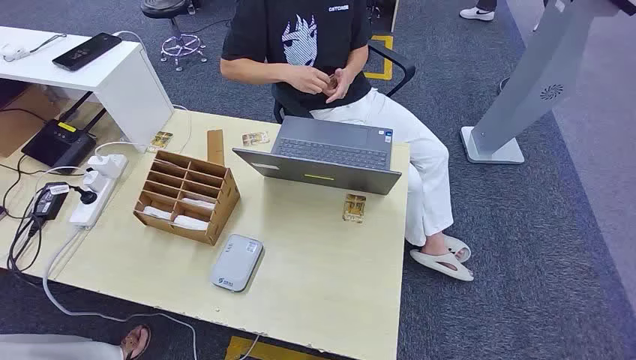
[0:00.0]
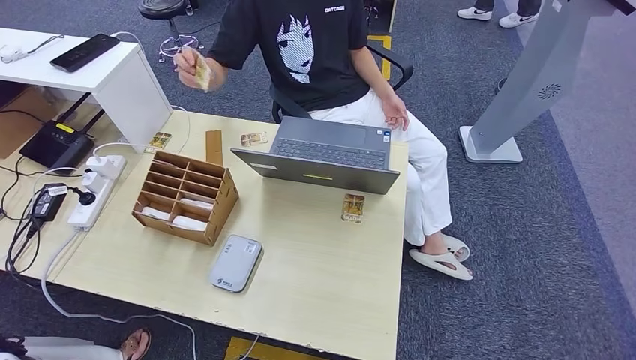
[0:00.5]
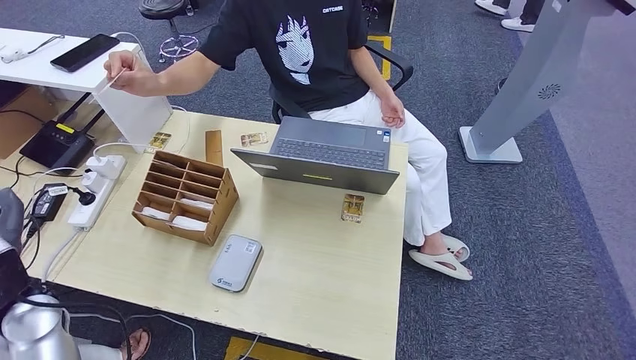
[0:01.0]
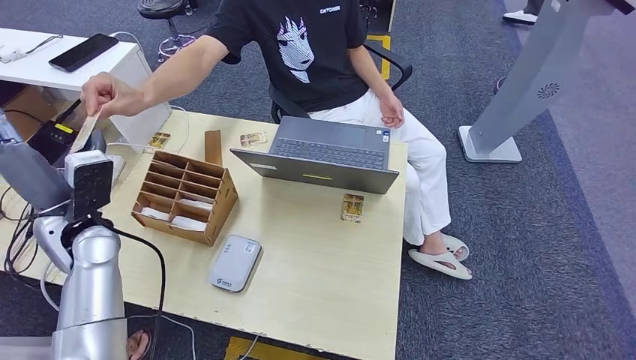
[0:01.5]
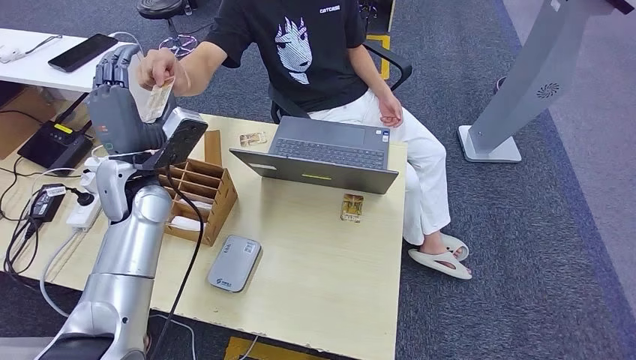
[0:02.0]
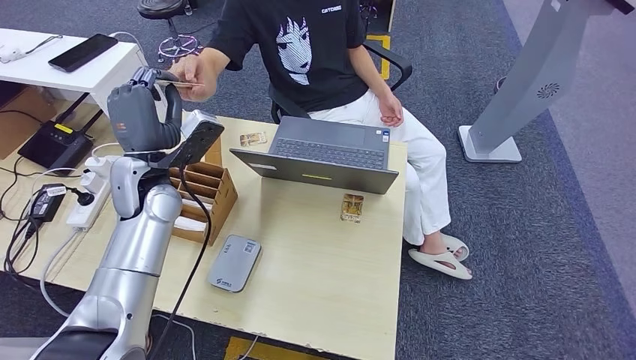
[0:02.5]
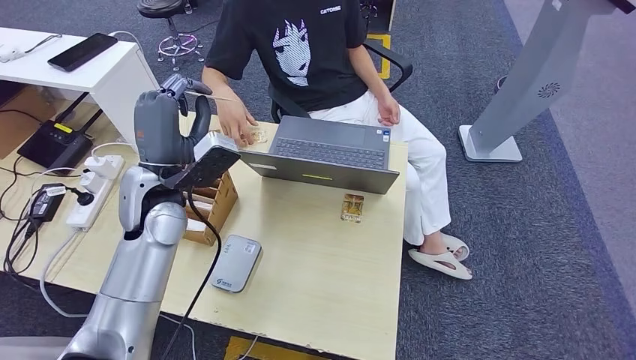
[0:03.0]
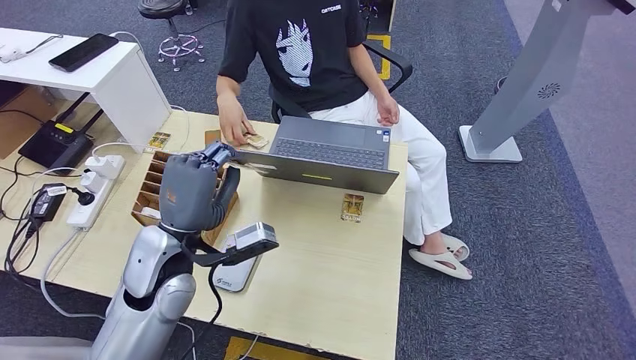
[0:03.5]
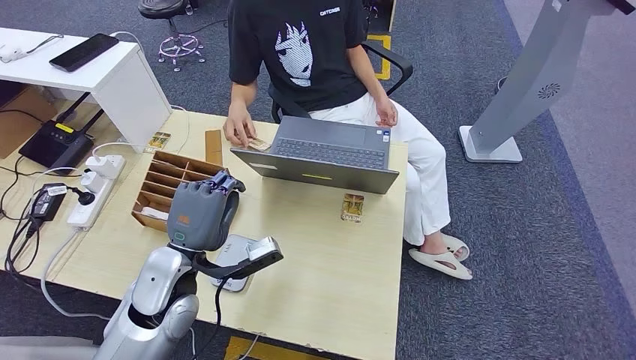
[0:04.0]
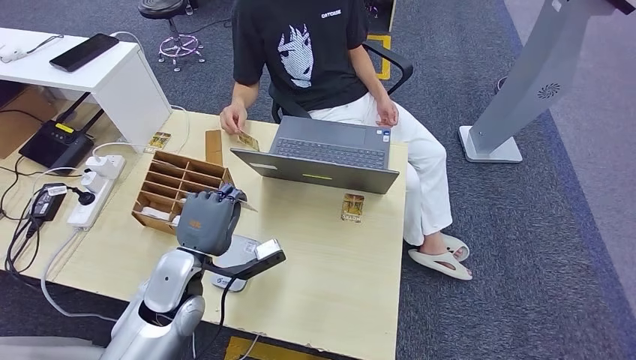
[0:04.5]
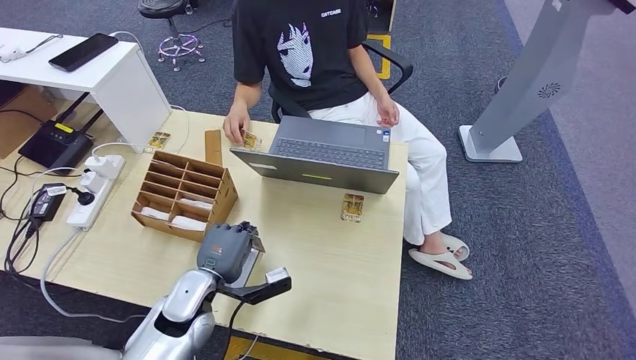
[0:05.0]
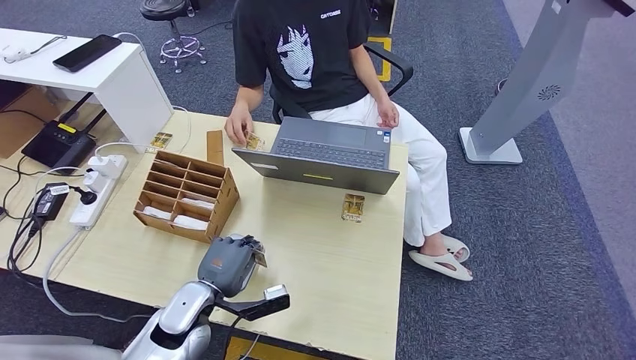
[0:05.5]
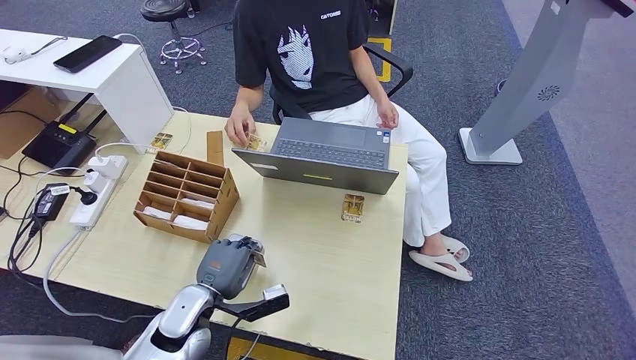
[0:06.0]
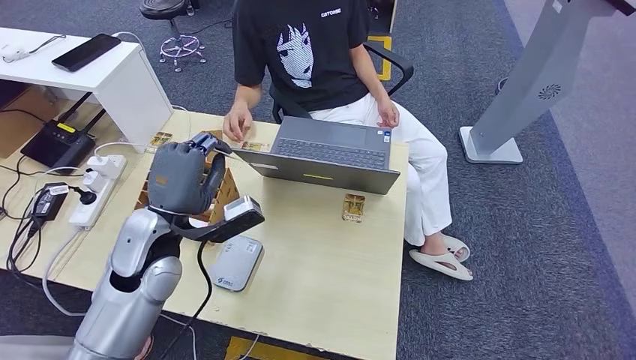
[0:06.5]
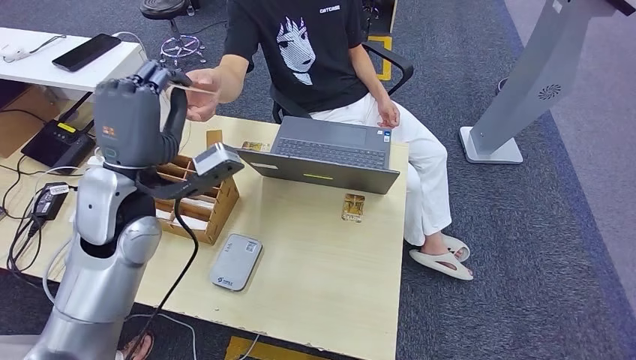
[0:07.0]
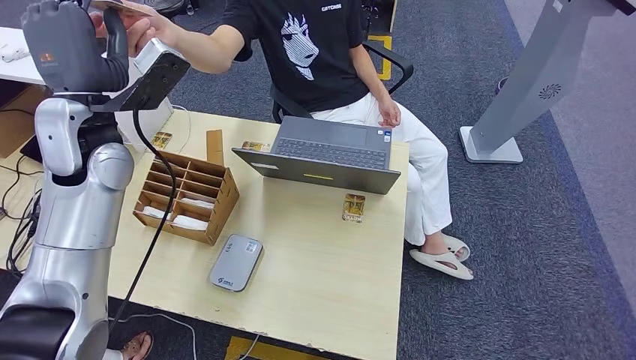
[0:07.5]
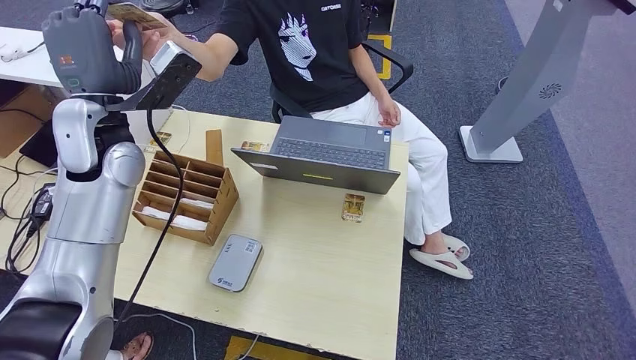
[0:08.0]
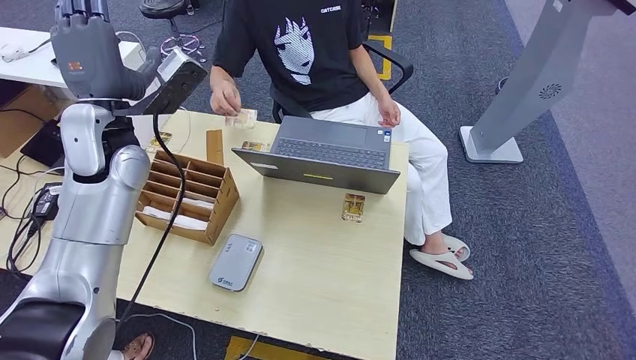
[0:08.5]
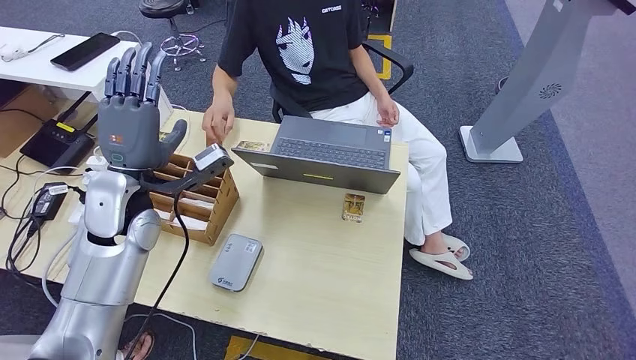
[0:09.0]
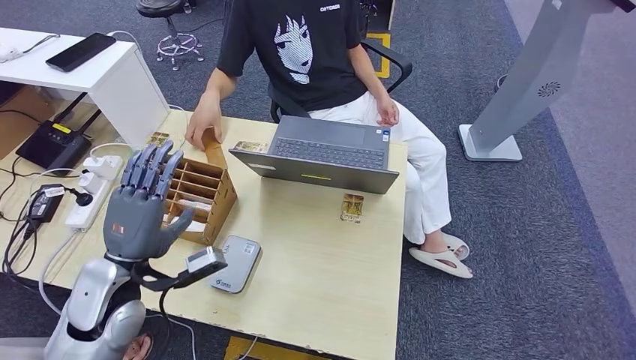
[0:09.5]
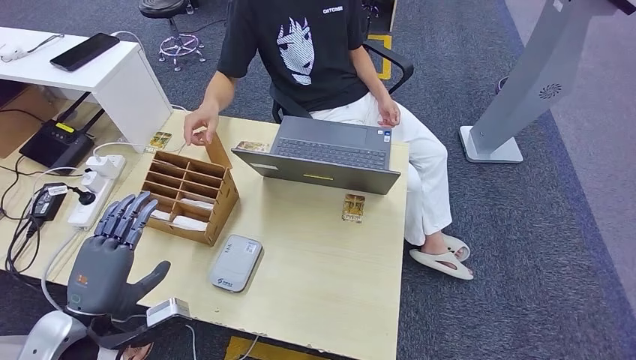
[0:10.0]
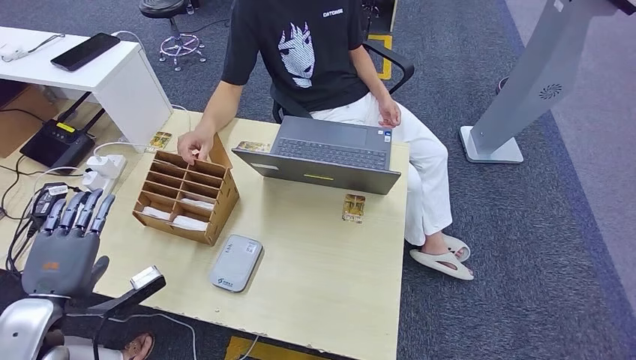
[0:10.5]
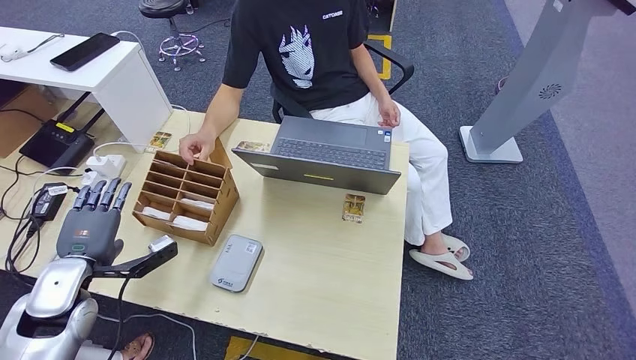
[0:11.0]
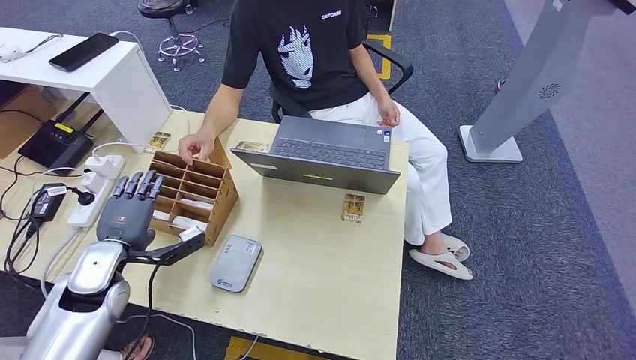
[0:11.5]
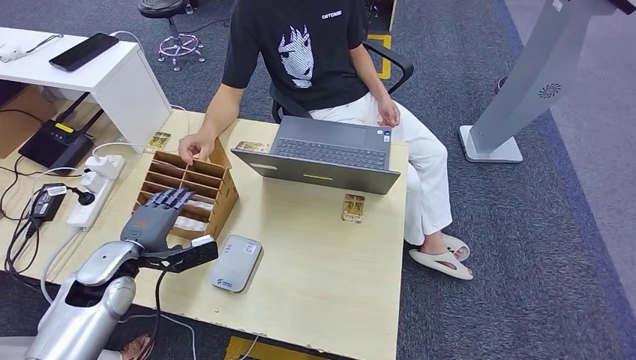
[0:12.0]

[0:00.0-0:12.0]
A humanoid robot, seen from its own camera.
Step, 0:00.0 to 0:03.0: Take the ID card from the person's hand.
Step, 0:03.5 to 0:05.0: Place the ID card on the card reader.
Step, 0:05.5 to 0:08.0: Hand the ID card to the person.
0:02.0 to 0:04.0: The left hand shifts about 15 cm backward, downward and to the right.
0:04.0 to 0:06.0: The left hand goes about 10 cm downward.
0:08.0 to 0:10.0: The left hand is displaced backward and downward by roughly 30 cm.
0:10.0 to 0:12.0: The left hand is displaced forward by approximately 10 cm.

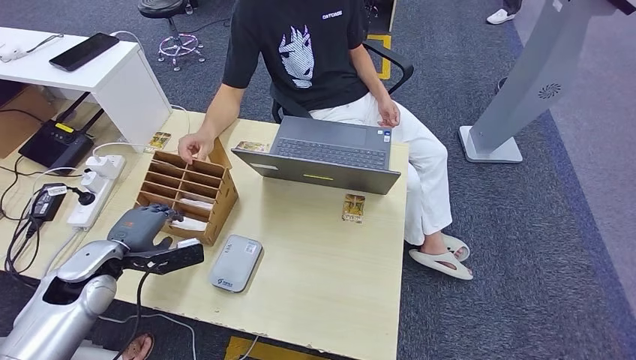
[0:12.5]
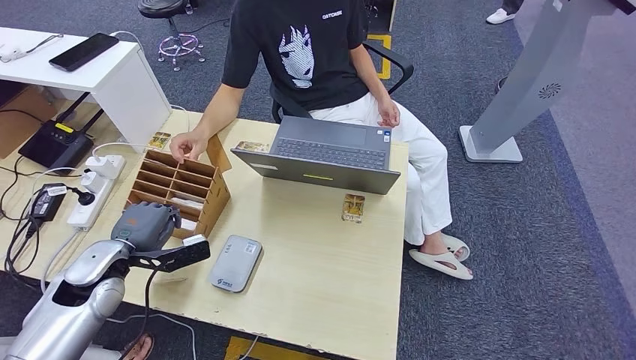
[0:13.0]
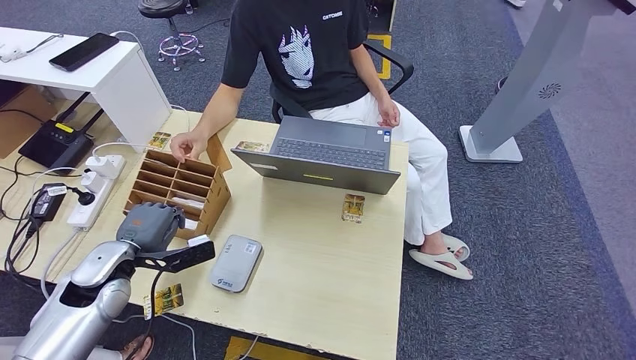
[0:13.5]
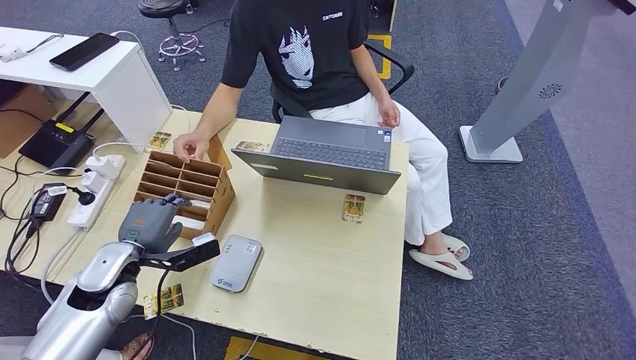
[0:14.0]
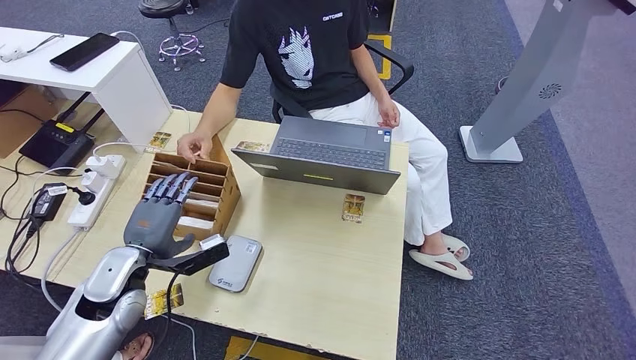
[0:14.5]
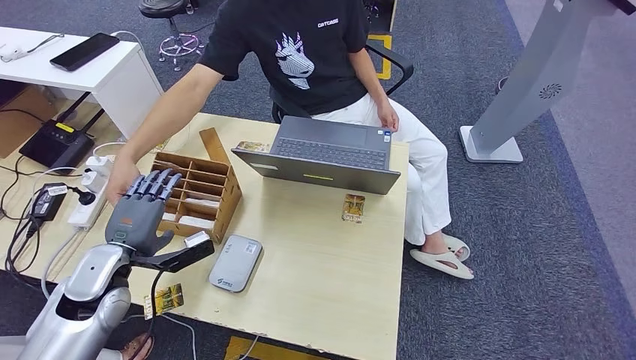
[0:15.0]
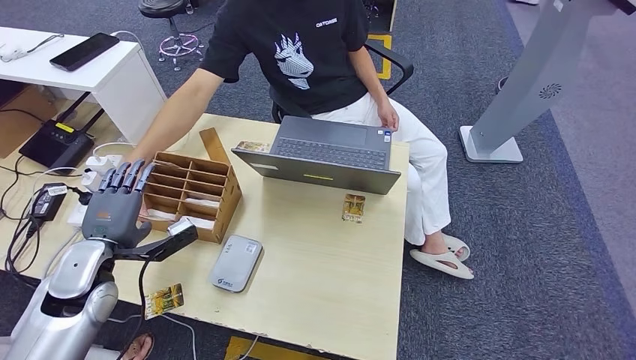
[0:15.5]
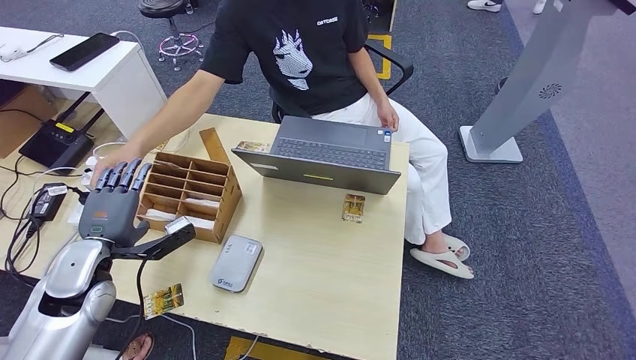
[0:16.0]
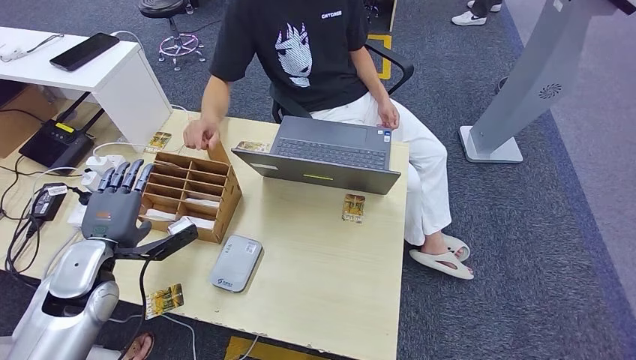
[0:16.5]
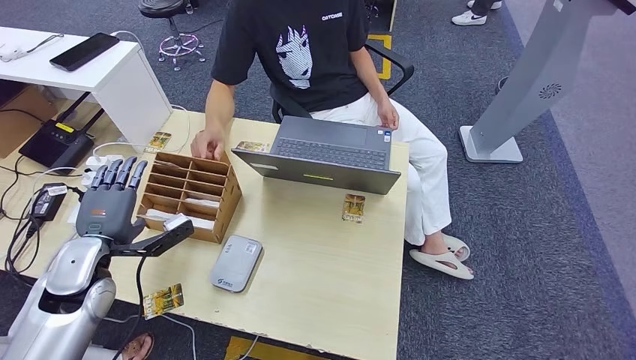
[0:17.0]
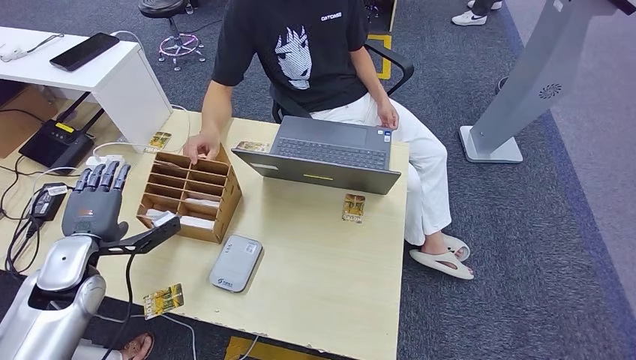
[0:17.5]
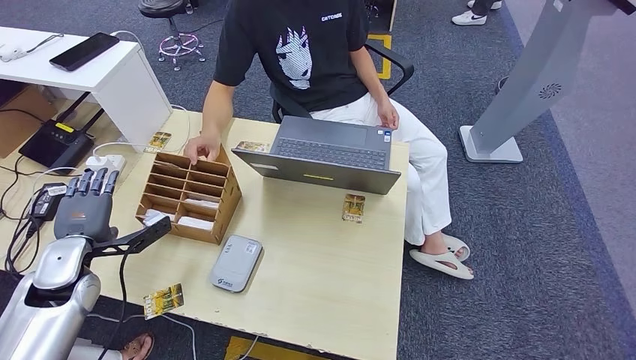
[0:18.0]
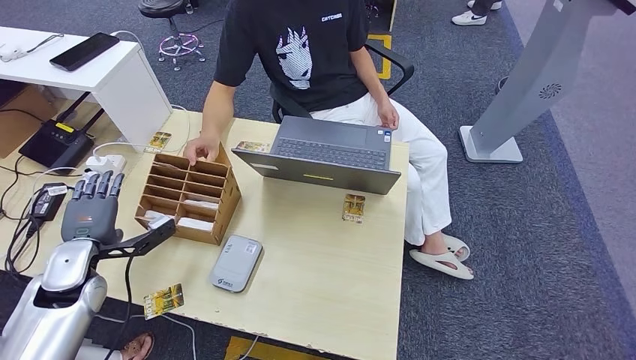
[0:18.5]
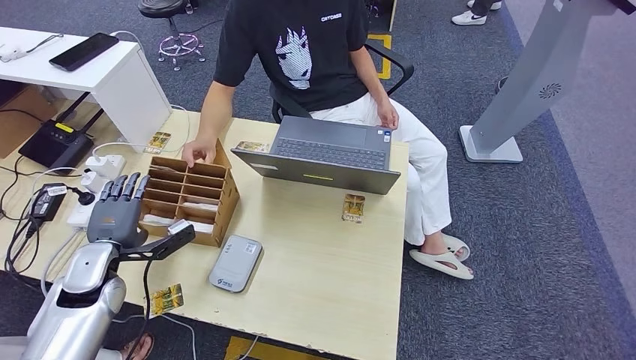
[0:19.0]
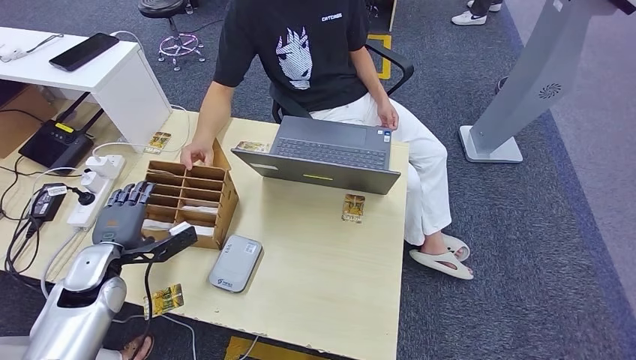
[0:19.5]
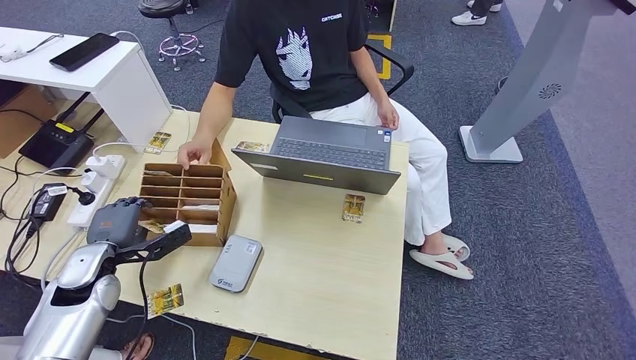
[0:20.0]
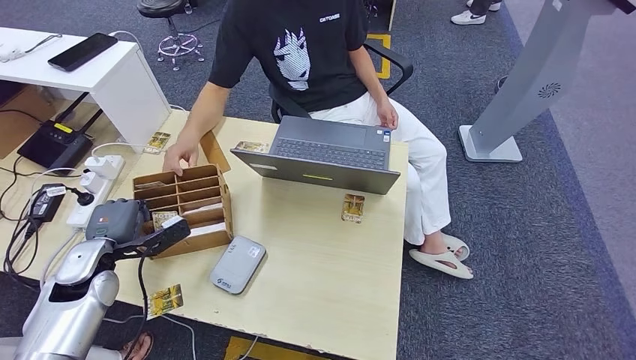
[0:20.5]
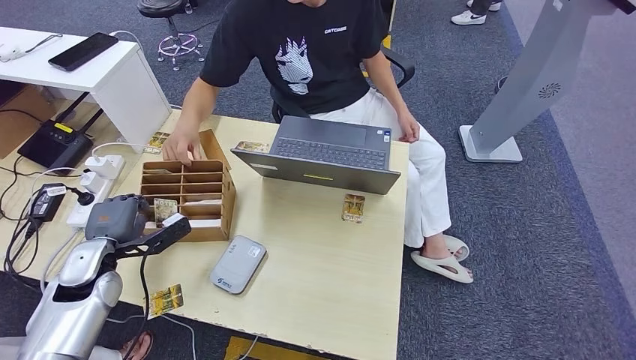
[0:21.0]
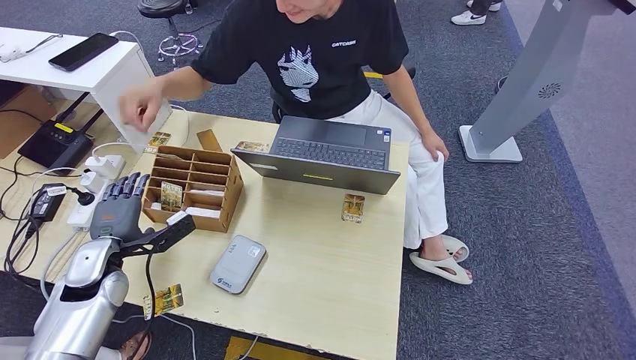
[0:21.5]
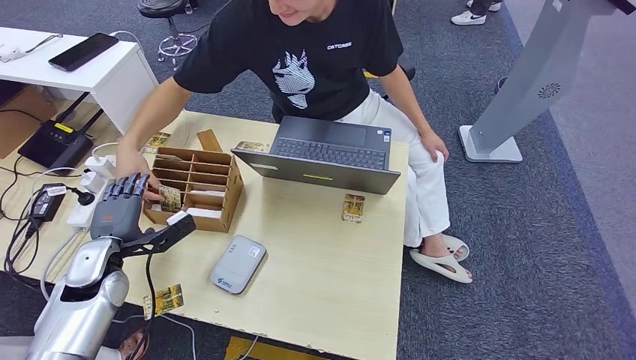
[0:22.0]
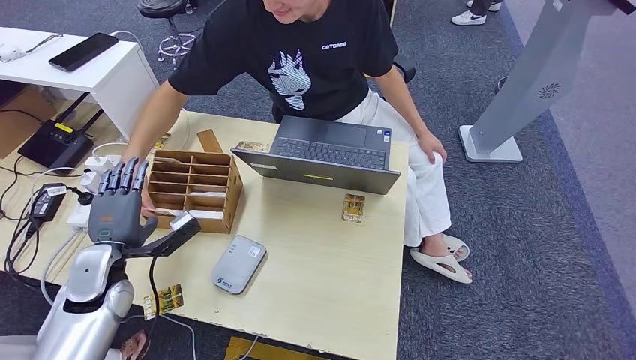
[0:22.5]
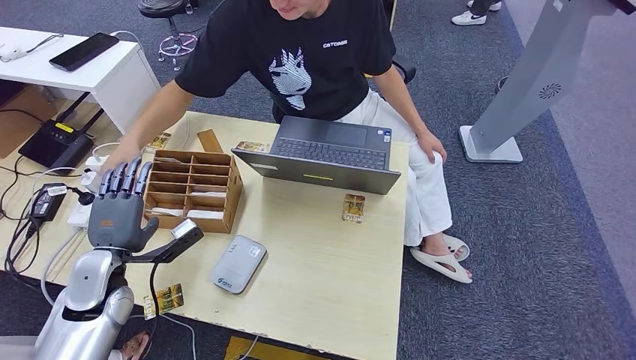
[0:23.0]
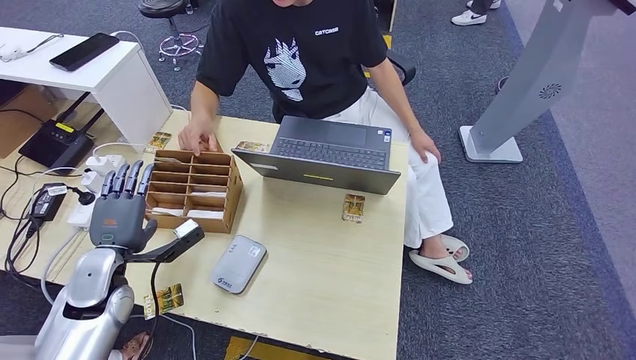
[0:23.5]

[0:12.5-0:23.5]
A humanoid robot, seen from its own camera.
0:12.5 to 0:14.5: The left hand moves to the right, roughly 5 cm.
0:14.5 to 0:16.0: The left hand moves roughly 5 cm.
0:16.0 to 0:23.5: The hands stay close to where they were, moving slightly.
